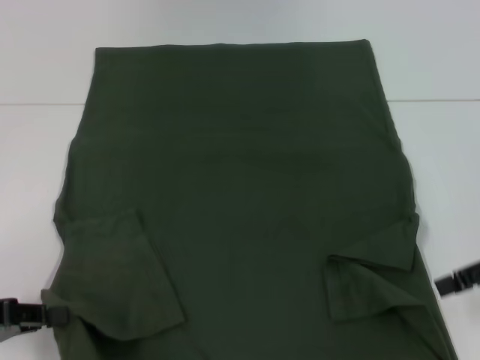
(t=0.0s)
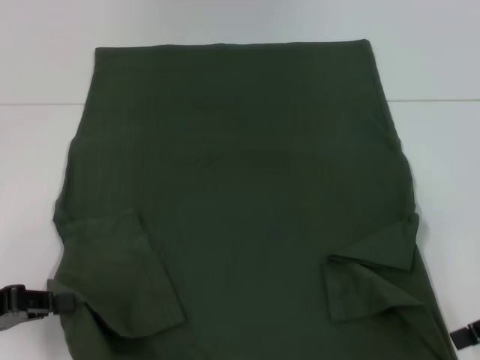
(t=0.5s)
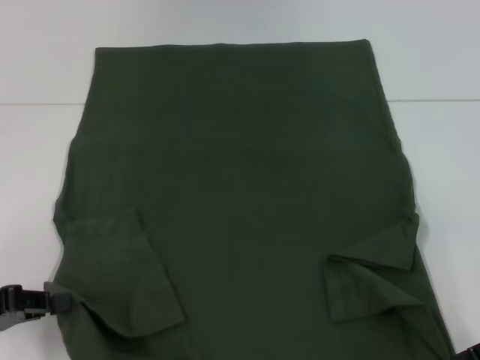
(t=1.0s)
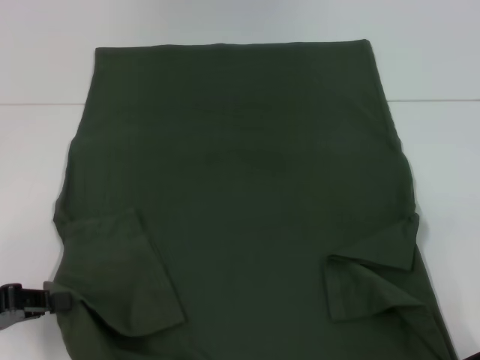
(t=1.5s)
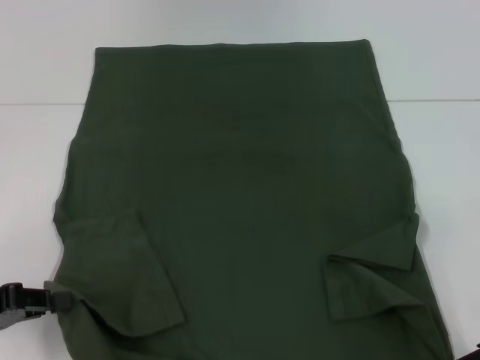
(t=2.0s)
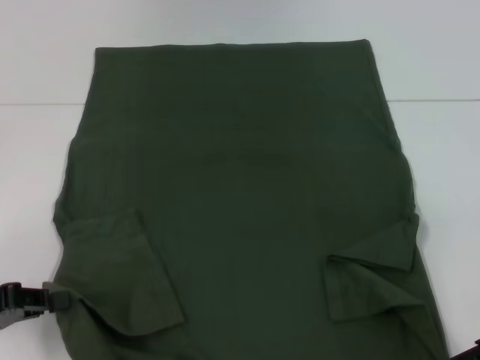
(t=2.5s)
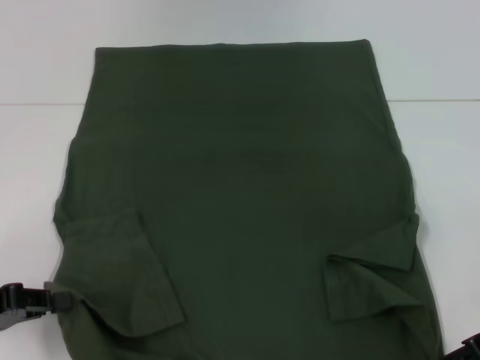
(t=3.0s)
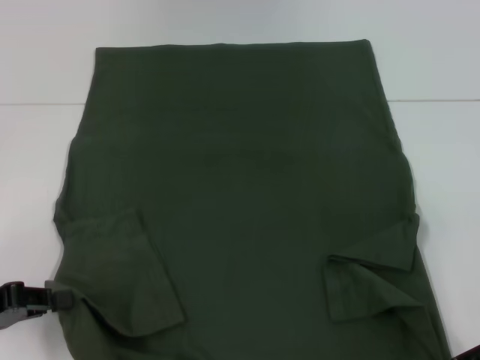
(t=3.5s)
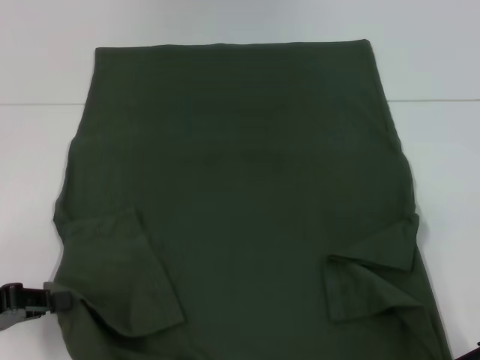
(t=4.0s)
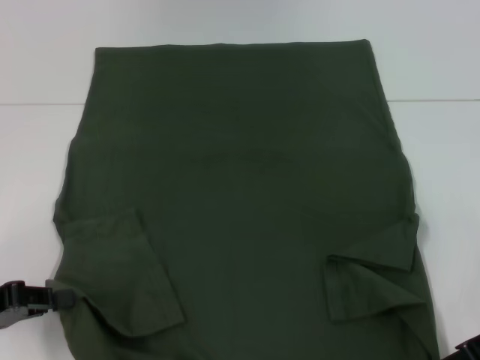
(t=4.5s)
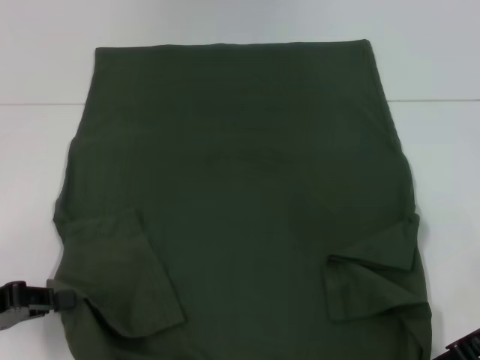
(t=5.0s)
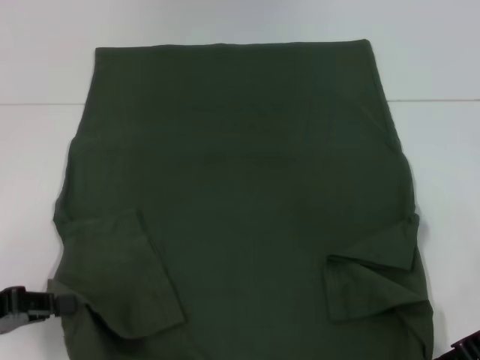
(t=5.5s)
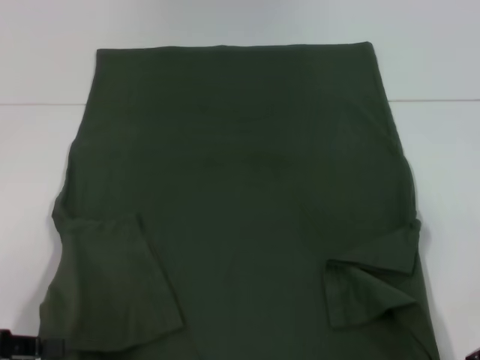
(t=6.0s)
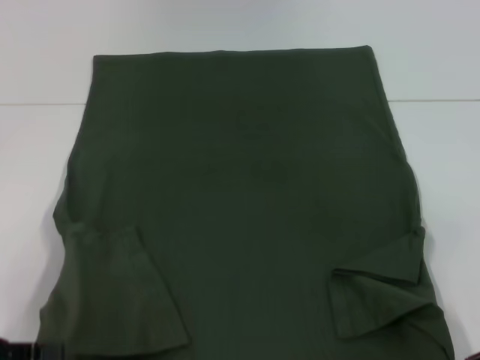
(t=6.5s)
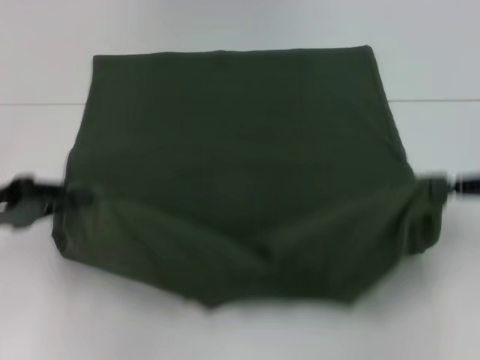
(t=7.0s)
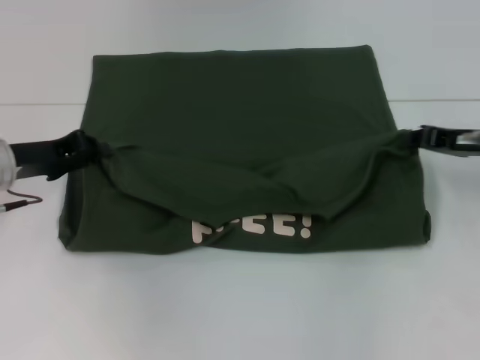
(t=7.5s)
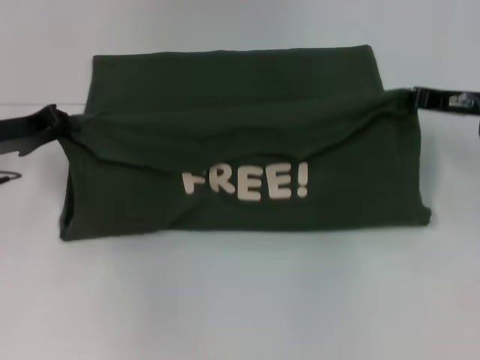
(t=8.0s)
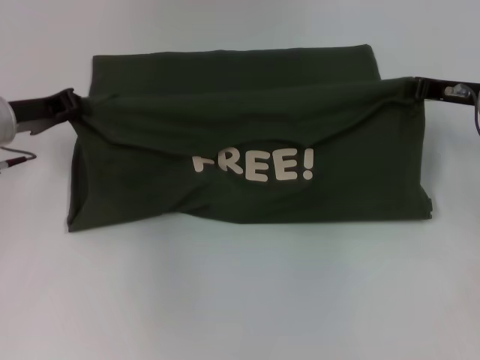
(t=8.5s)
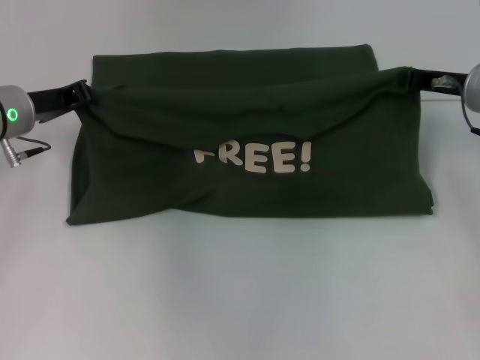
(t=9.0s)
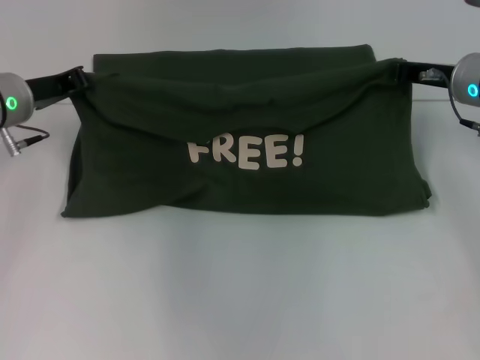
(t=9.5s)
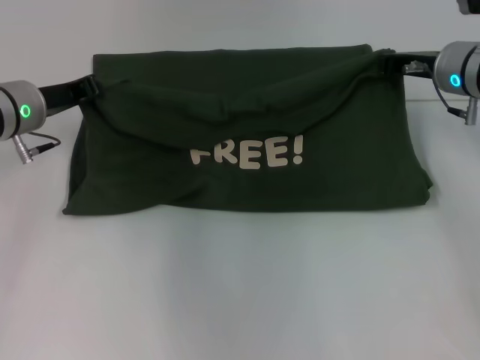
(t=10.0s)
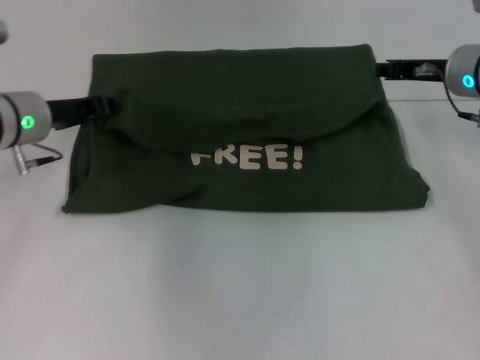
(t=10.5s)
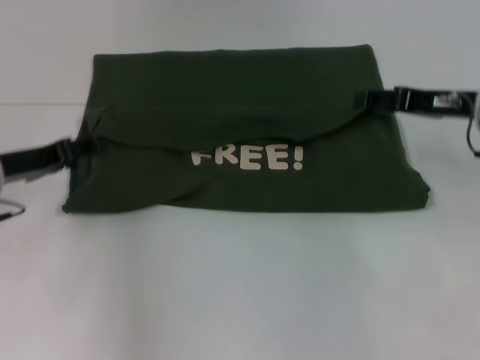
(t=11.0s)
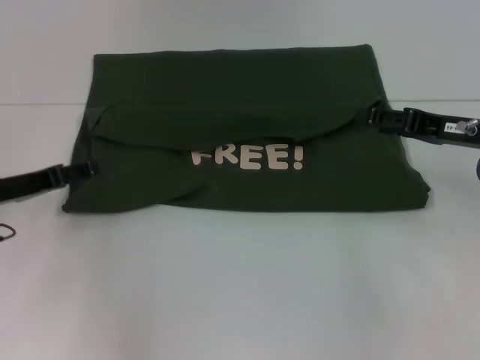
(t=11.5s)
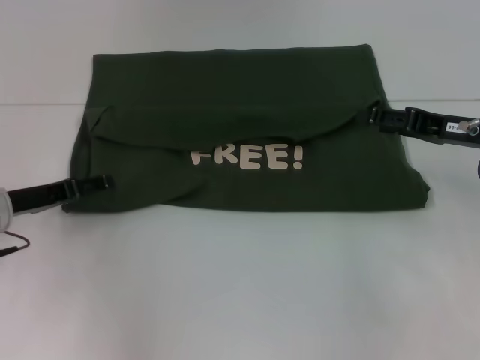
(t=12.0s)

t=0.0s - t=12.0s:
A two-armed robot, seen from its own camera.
Step, t=0.0s - t=6.0s: Grab the bottom right corner with your right hand.
Step, t=6.5s - t=11.0s: Fold the clothes with your left hand.
Step, t=6.5s - t=11.0s: Fold the clothes with your right hand.
t=0.0s - t=2.0s: The right gripper heads downward, covering approximately 5 cm.
t=4.0s - t=6.0s: The right gripper closes up.
t=6.0s - t=8.0s: Both grippers move forward, about 15 cm.
t=8.0s - t=10.0s: The right gripper moves to the left, some 5 cm, while the left gripper is displaced to the right by about 5 cm.
t=10.0s - t=12.0s: The left gripper heads backward and downward, covering about 10 cm, and opens, while the right gripper moves backward and to the right, some 10 cm, and opens.

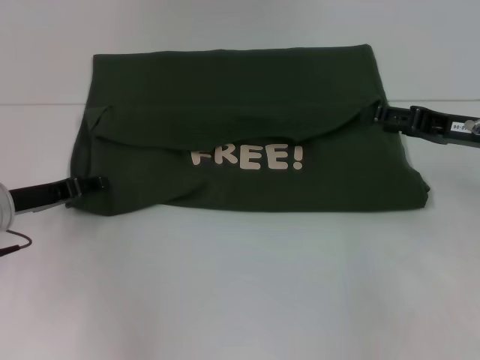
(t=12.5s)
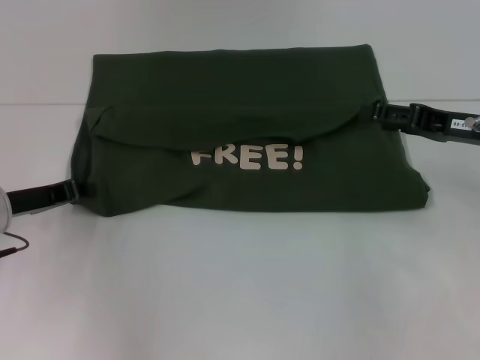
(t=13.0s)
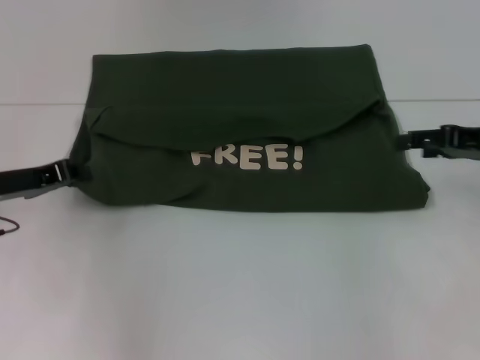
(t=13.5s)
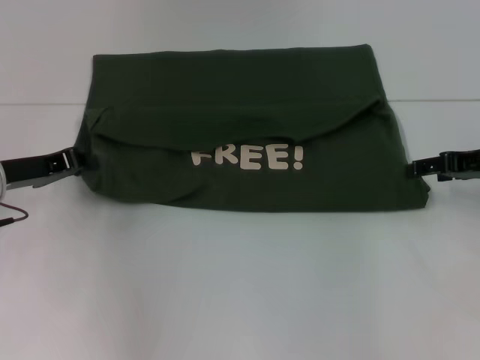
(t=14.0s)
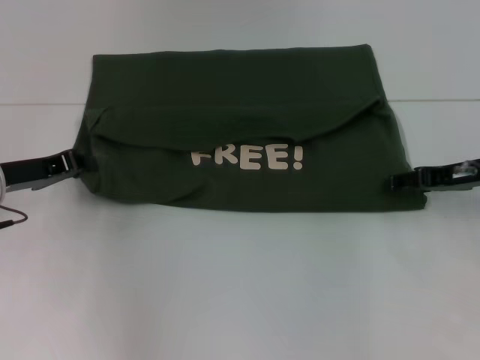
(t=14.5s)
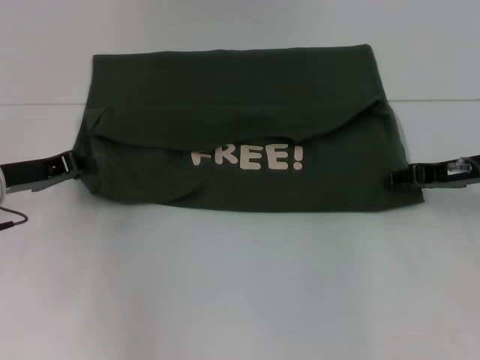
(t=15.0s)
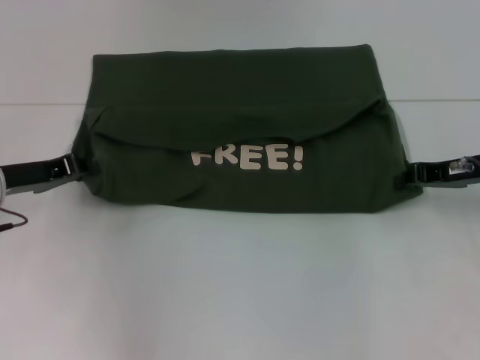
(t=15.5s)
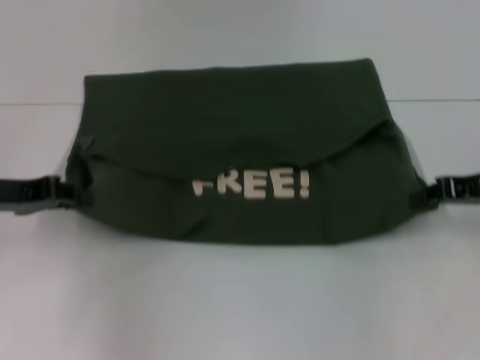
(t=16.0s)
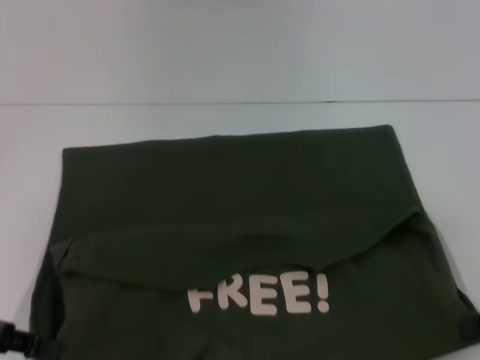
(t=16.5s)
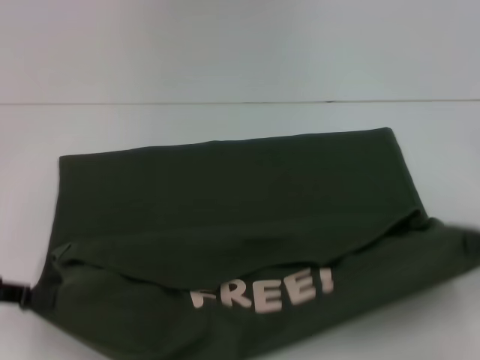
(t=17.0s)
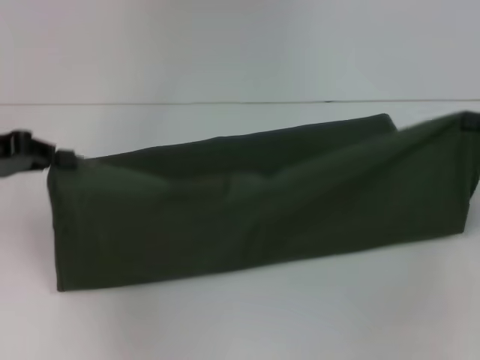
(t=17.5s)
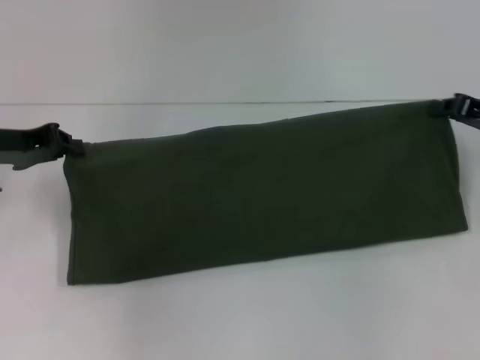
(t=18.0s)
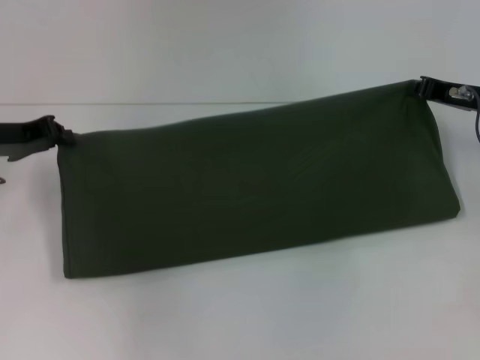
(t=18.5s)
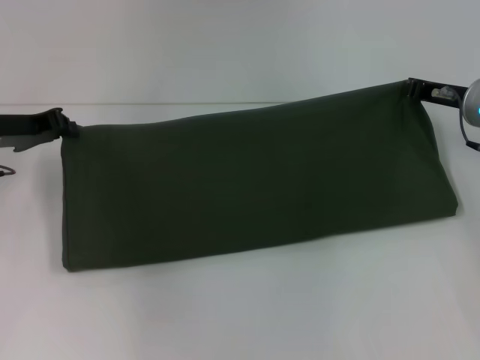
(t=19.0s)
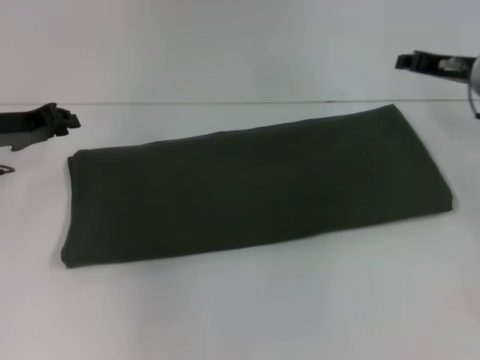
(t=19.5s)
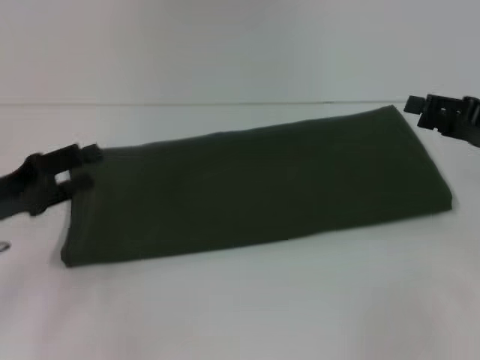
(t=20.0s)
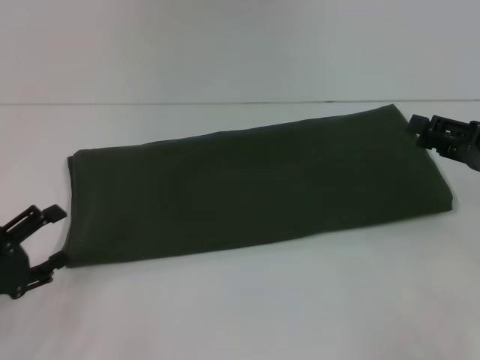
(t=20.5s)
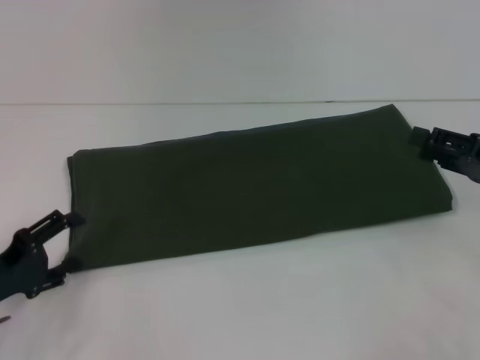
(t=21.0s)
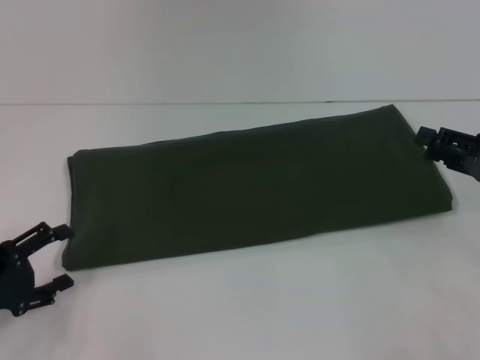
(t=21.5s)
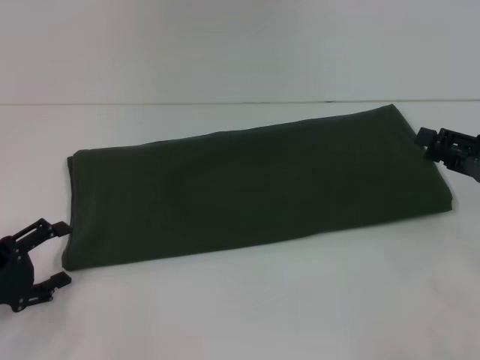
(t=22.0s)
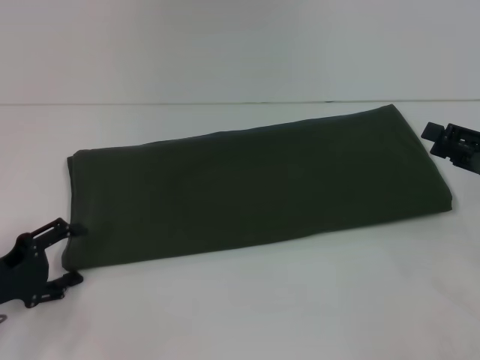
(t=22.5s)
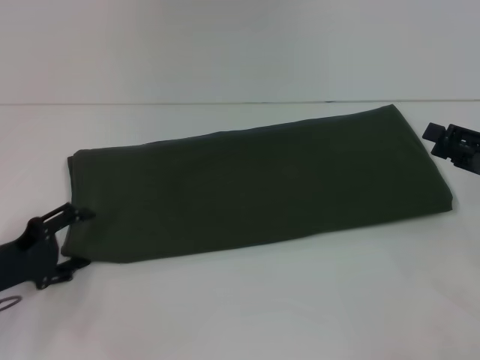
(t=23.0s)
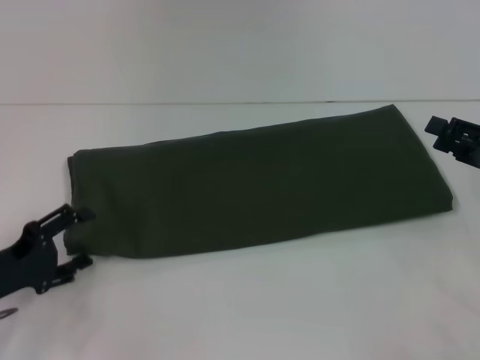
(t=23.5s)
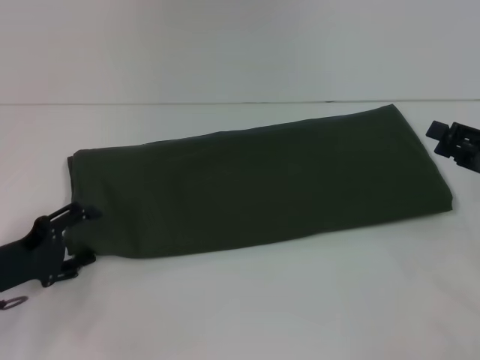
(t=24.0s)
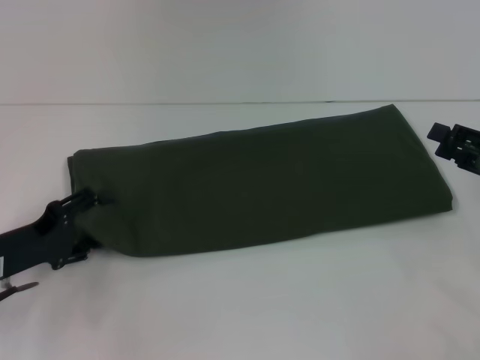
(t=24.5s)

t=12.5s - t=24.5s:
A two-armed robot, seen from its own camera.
Step, t=12.5s - t=16.5s: Pull the clothes with your left hand.
Step, t=12.5s - t=16.5s: Pull the clothes with your right hand.
Step, t=17.0s - t=19.5s: Fold the clothes with your right hand.
t=12.5s - t=14.5s: The left gripper closes up.
t=14.5s - t=16.5s: The right gripper goes approximately 15 cm backward and to the right, and closes. The left gripper travels backward by roughly 10 cm.
t=16.5s - t=18.5s: The left gripper heads forward, covering some 15 cm. The right gripper heads forward and to the left, covering approximately 15 cm.
t=18.5s - t=20.5s: The left gripper shifts roughly 20 cm backward and downward, and opens up. The right gripper is displaced backward by roughly 10 cm, and opens up.
t=20.5s - t=22.5s: The grippers stay close to where they were, moving slightly.
t=22.5s - t=24.5s: The grippers move only a little.

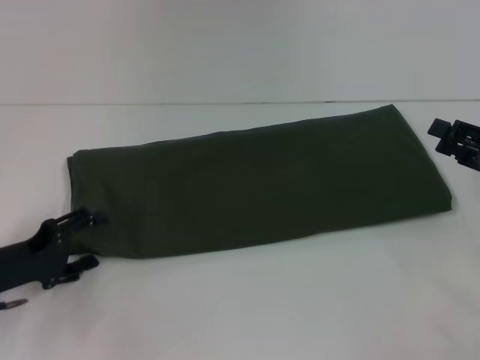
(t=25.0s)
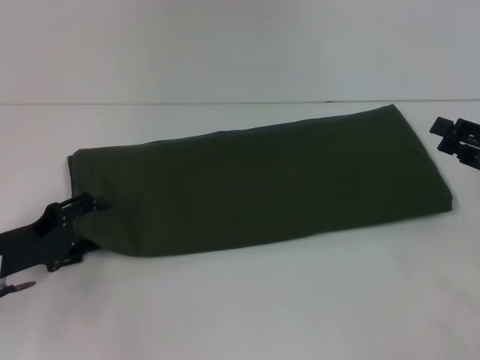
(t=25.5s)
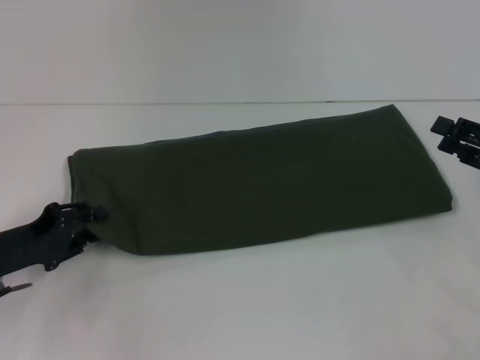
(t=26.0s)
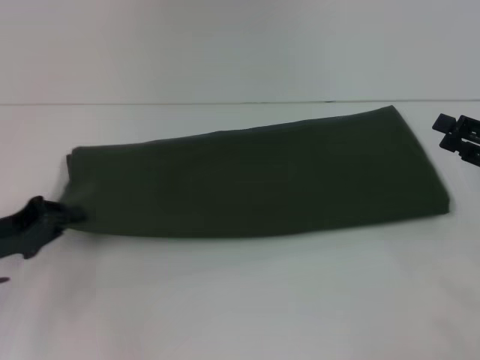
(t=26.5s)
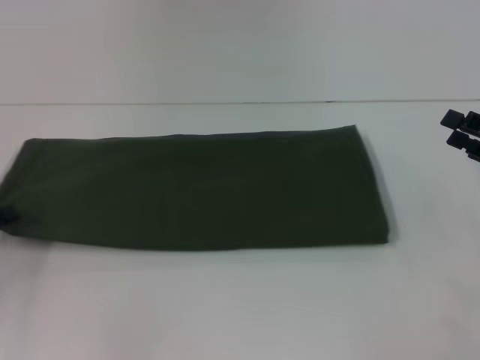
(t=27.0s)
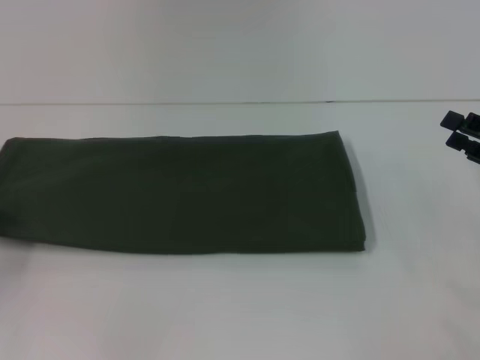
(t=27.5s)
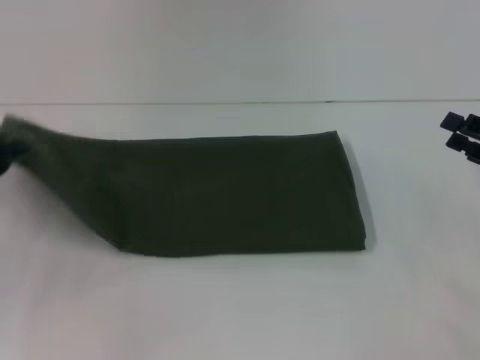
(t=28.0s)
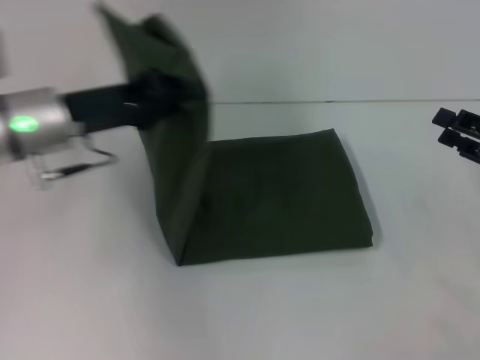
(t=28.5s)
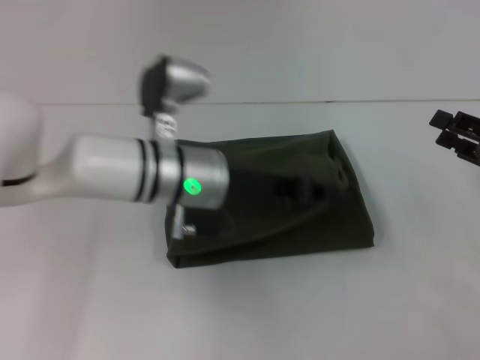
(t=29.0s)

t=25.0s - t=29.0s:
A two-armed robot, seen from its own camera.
t=25.0s - t=27.0s: The left gripper is displaced to the left by some 5 cm, and closes up.
t=27.0s - t=29.0s: The left gripper heads to the right, covering approximately 30 cm.
